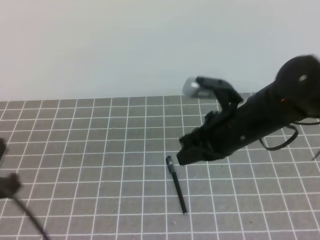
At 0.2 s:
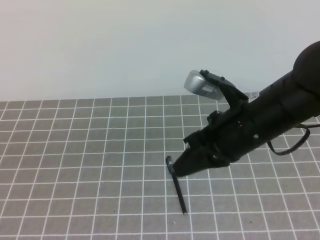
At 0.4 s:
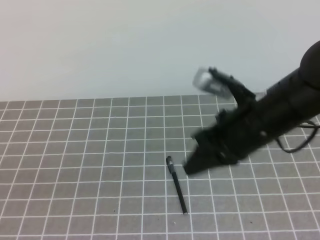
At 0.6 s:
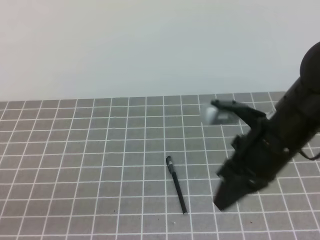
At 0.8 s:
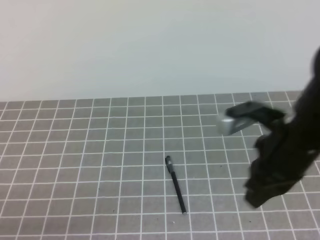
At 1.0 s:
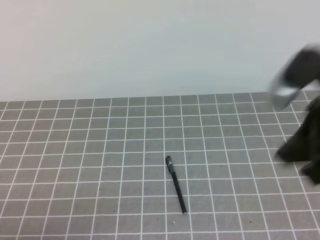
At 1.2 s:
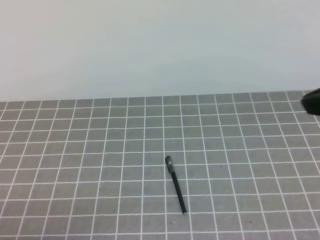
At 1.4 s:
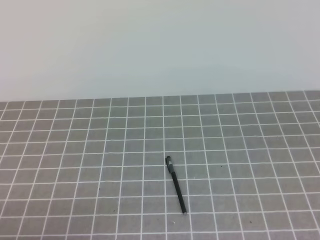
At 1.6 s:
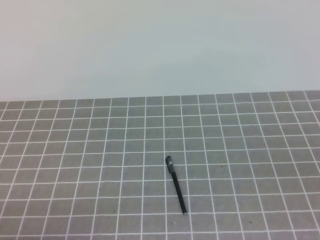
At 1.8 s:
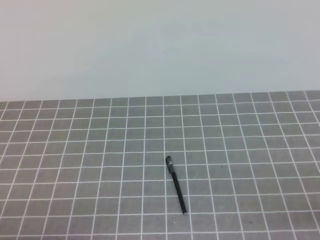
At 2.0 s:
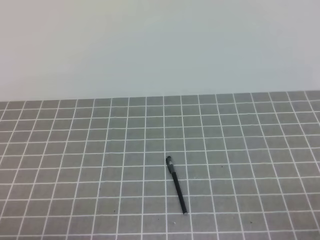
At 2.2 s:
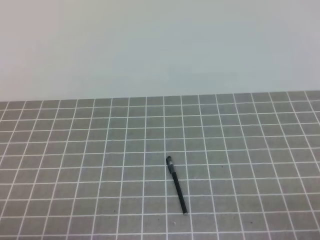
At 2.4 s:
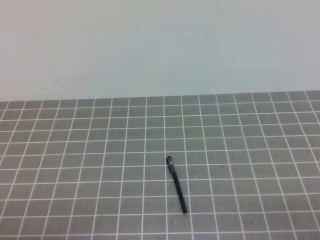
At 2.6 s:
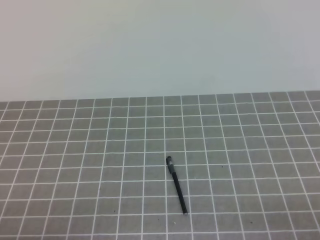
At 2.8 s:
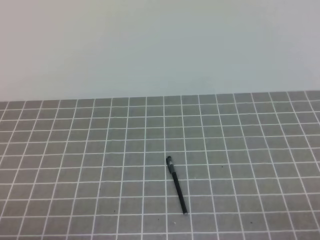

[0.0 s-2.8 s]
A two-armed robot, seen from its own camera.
Task of the whole recording: on the grey tablecloth, hold the pen cap in one hand and the pen in the other, then cover the pen cap.
Step, 0.0 to 2.8 s: Put the cap on the pen.
0.0 to 1.4 s: The right gripper travels upward, to the right and backward by roughly 25 cm, while the left gripper heads downward and backward, covering some 15 cm.
1.4 to 2.8 s: The right gripper goes about 25 cm downward and backward.
